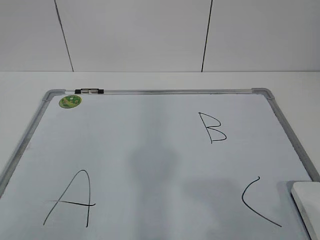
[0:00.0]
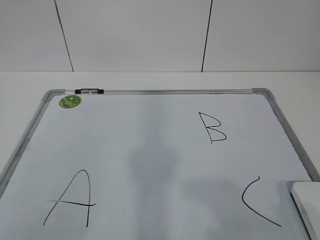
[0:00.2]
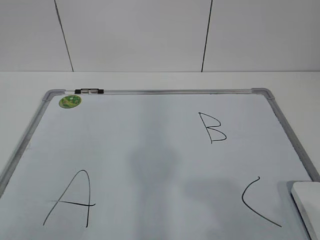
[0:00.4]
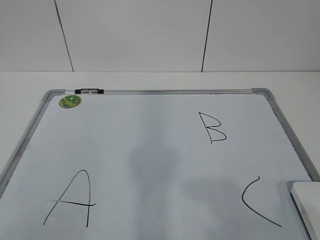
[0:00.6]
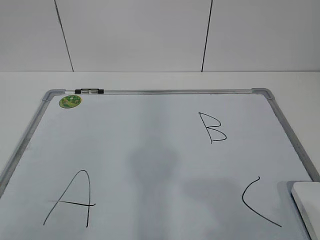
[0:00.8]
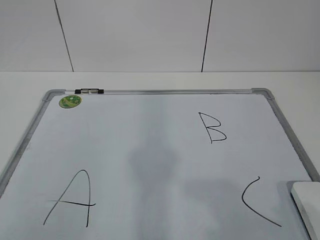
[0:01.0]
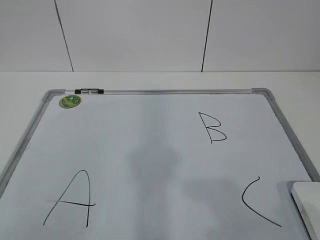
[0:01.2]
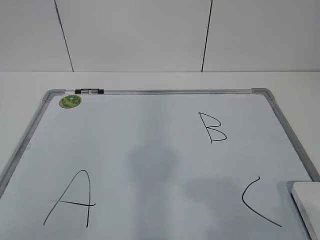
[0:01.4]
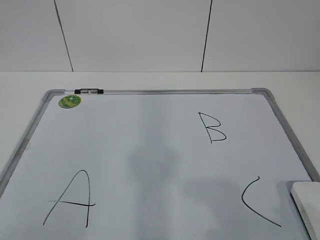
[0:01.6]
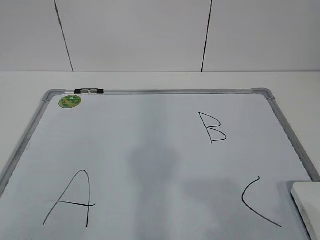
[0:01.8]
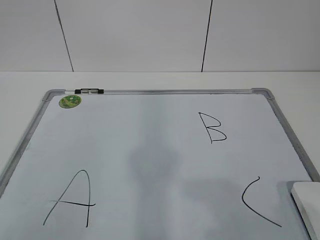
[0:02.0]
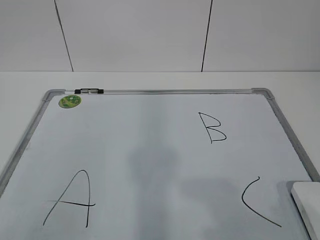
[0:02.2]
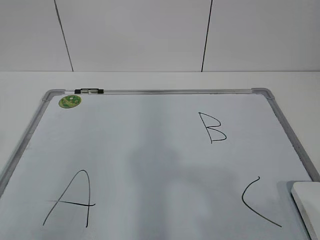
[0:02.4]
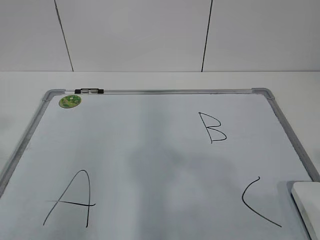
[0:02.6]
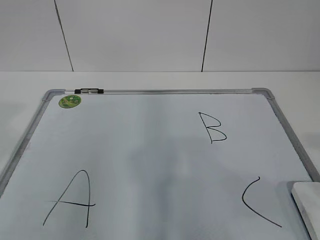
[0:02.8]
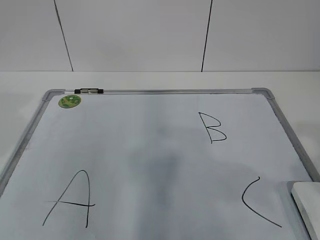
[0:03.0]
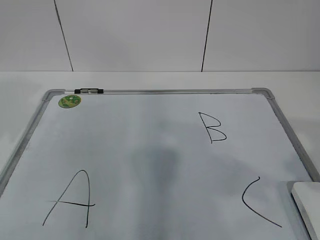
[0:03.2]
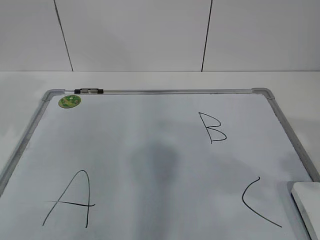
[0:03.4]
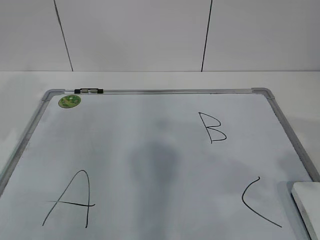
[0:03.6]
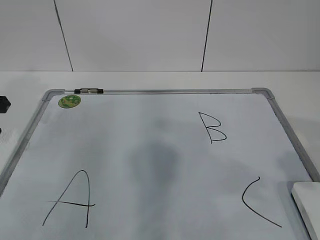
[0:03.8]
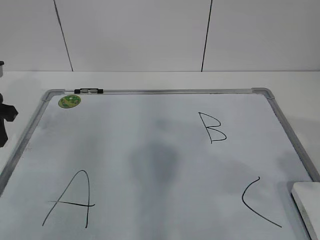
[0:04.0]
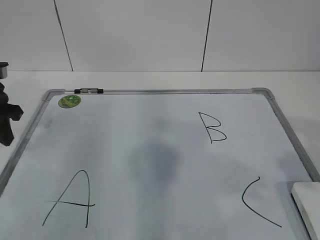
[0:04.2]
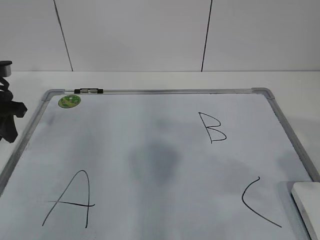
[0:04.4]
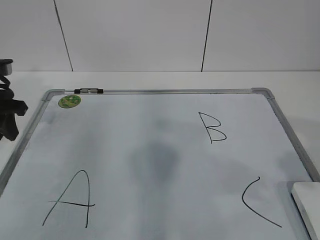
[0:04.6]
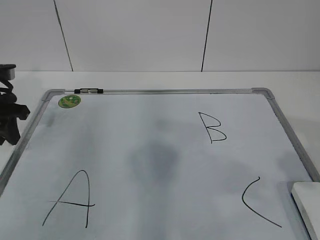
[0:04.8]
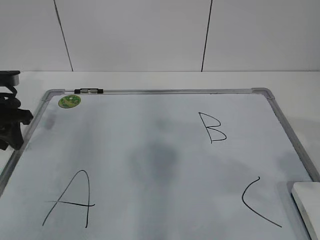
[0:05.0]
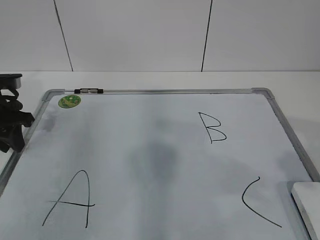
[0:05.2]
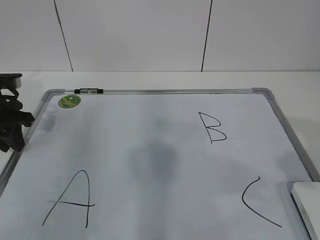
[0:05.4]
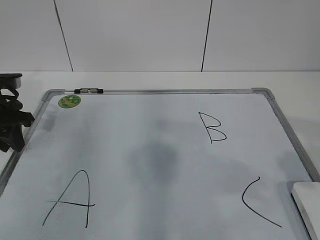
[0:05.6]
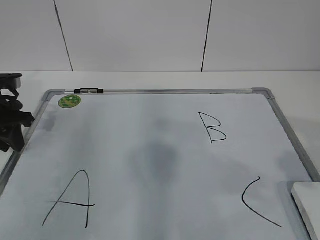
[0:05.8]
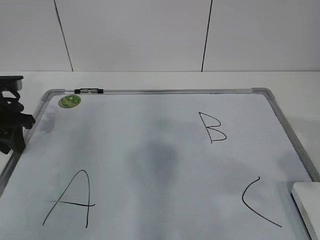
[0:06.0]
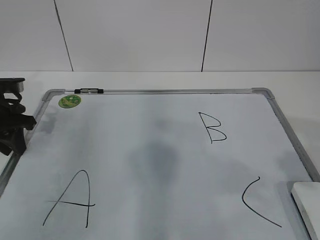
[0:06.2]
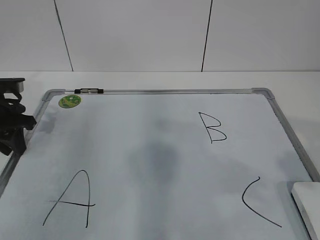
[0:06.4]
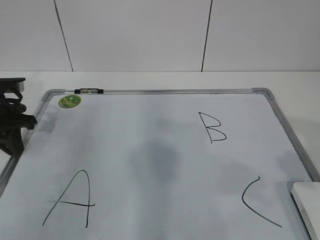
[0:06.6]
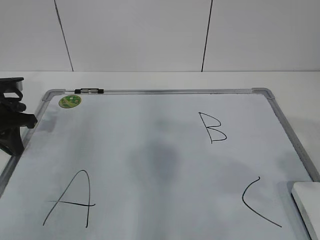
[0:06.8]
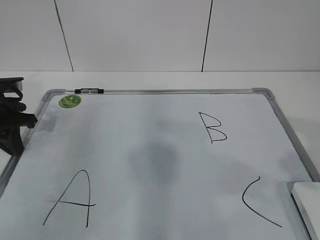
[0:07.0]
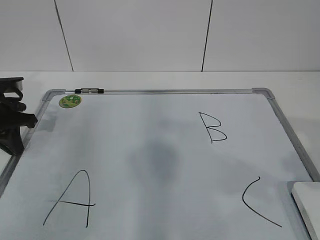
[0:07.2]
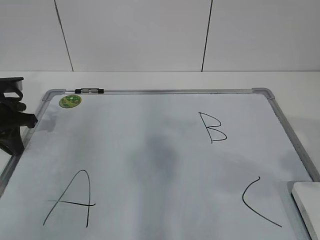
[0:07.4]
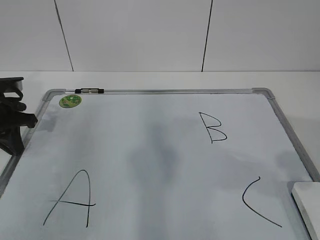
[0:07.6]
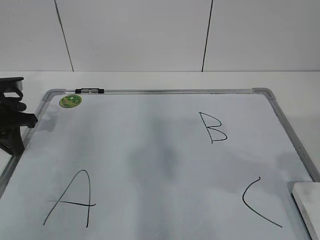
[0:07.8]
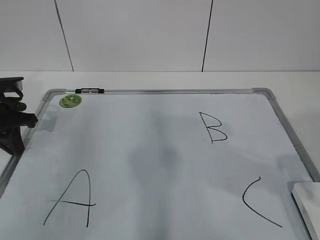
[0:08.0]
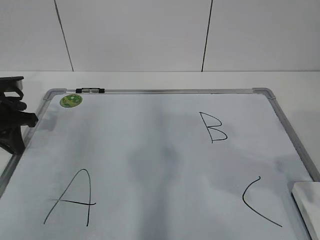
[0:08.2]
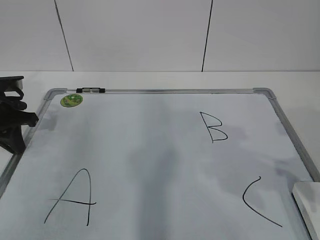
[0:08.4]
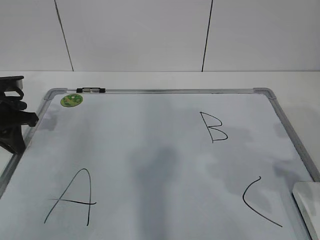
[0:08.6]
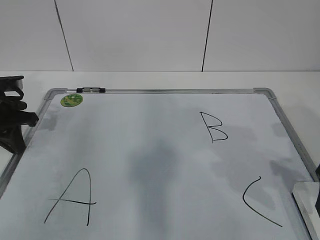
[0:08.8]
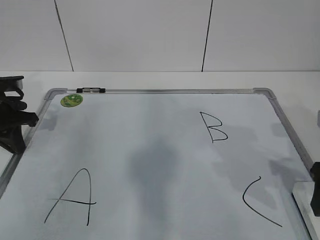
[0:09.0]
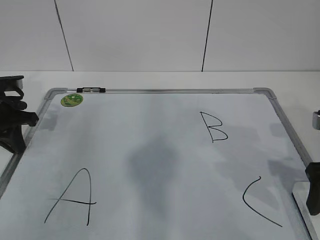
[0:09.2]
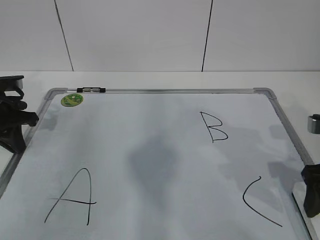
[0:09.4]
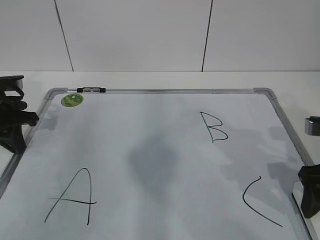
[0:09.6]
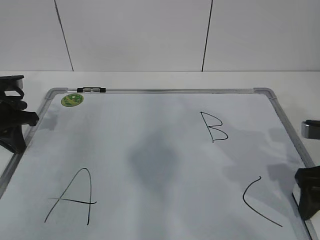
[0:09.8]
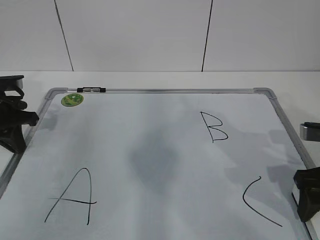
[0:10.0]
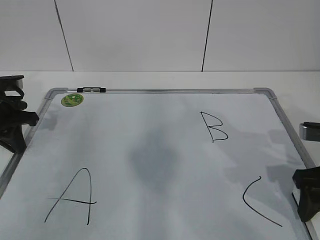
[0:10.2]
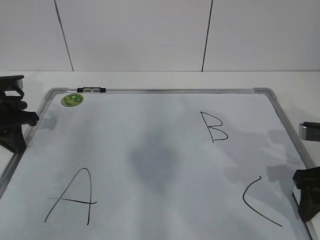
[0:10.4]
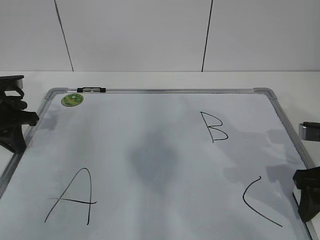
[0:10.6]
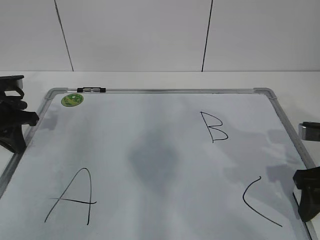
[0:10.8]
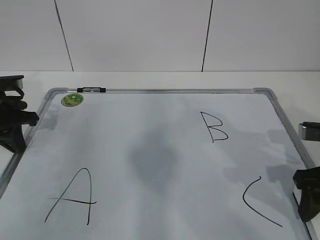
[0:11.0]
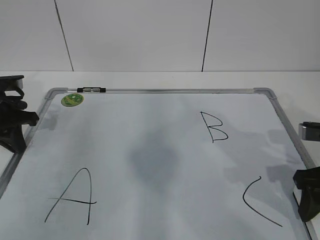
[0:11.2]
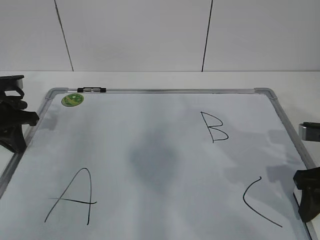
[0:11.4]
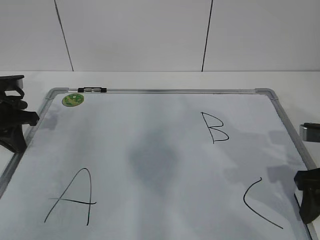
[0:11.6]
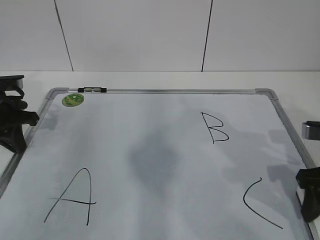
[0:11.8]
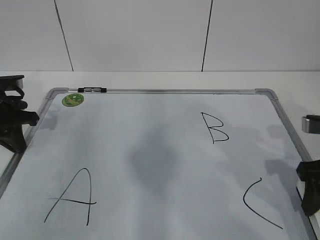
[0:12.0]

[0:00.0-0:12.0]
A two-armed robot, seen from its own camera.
Task of the whole recording: pick up the eraser on the blackboard and erase the letter "B".
Step, 0:00.0 to 0:05.4: Hold the drawing board steady with your left hand.
0:01.6 to 0:03.0: The right gripper is displaced forward and upward by some 10 cm; the left gripper shifts approximately 20 cm forward.
0:03.0 to 0:04.4: The left gripper moves forward and downward, approximately 20 cm.
0:04.4 to 0:06.0: The grippers stay close to where they were, moving slightly.
0:06.0 to 0:07.6: The left gripper closes up.
0:07.6 to 0:09.0: The right gripper is displaced forward and downward by about 15 cm.
0:09.0 to 0:10.4: The right gripper closes its fingers.
0:10.4 to 0:12.0: The grippers stay close to where they were, moving slightly.

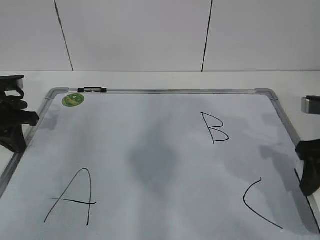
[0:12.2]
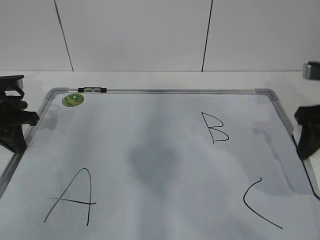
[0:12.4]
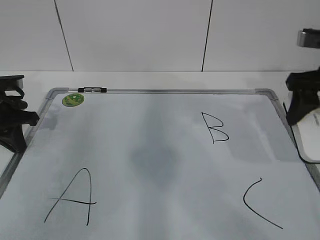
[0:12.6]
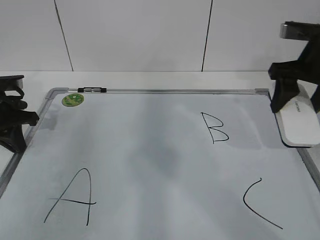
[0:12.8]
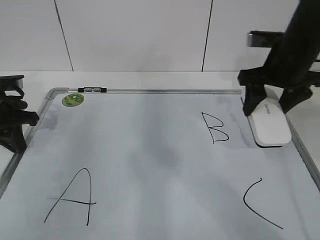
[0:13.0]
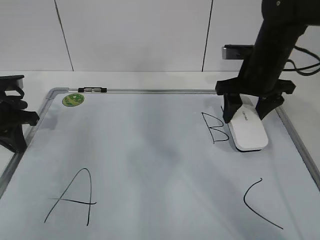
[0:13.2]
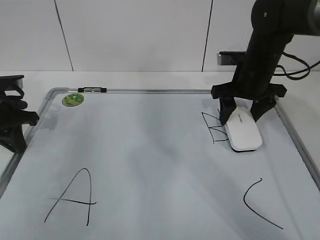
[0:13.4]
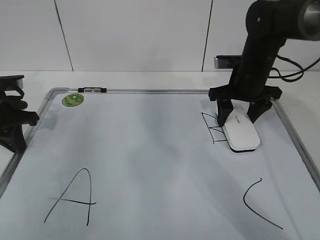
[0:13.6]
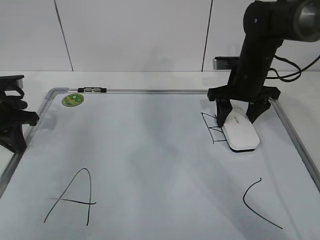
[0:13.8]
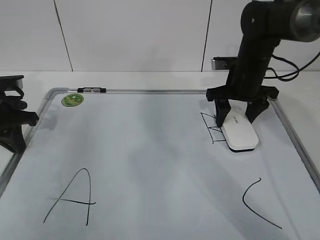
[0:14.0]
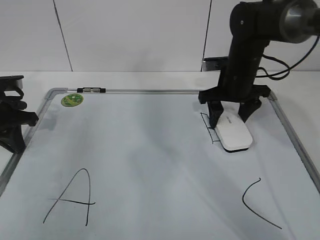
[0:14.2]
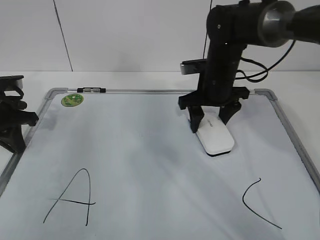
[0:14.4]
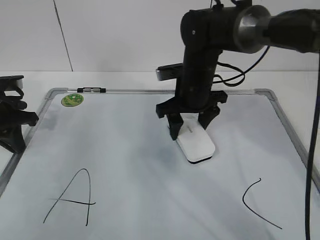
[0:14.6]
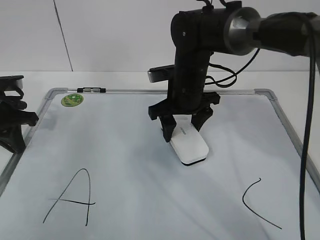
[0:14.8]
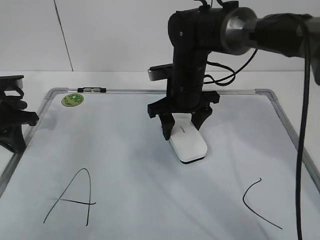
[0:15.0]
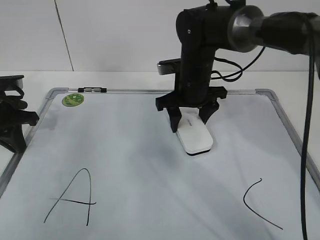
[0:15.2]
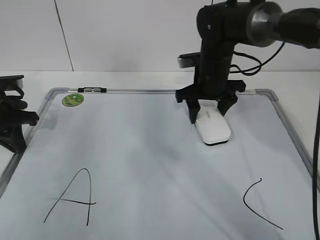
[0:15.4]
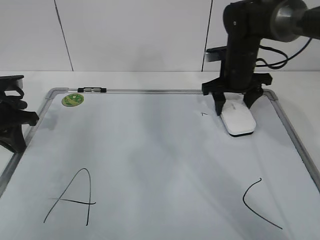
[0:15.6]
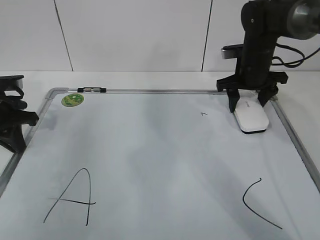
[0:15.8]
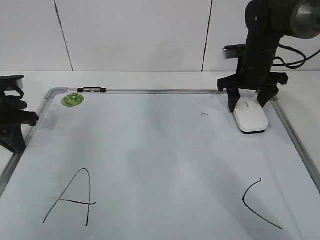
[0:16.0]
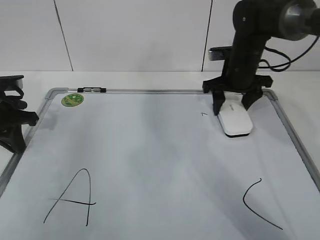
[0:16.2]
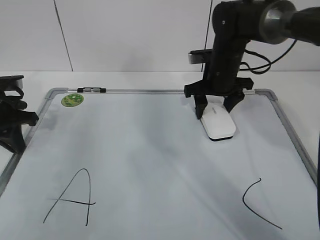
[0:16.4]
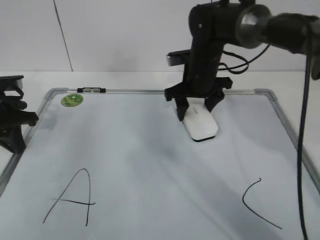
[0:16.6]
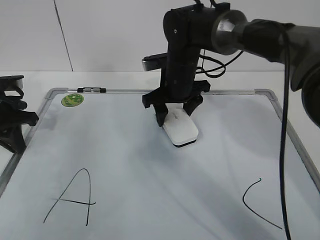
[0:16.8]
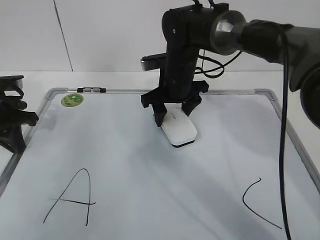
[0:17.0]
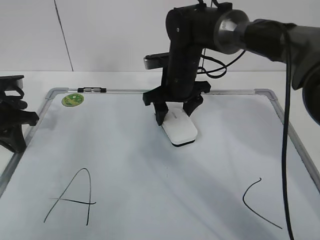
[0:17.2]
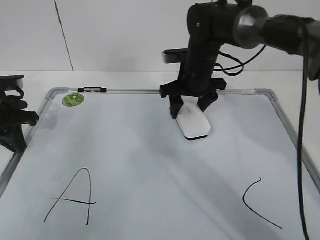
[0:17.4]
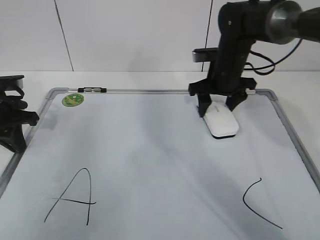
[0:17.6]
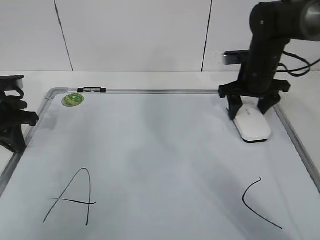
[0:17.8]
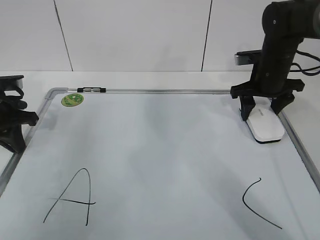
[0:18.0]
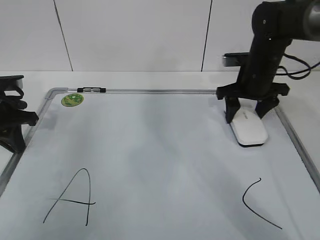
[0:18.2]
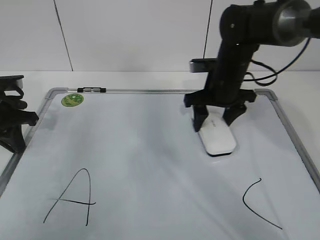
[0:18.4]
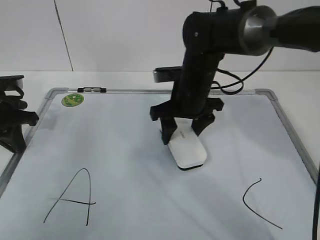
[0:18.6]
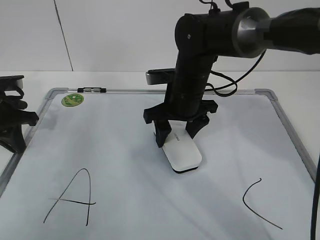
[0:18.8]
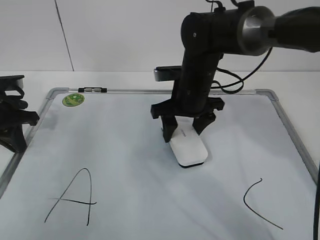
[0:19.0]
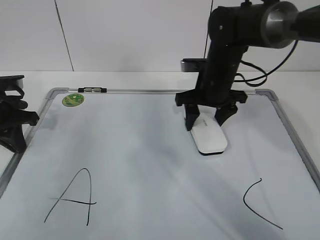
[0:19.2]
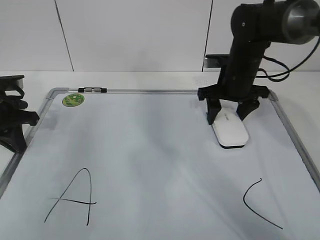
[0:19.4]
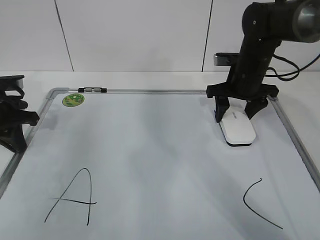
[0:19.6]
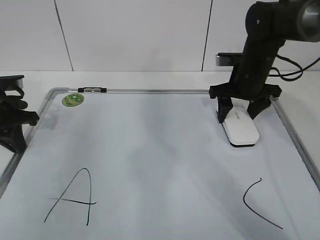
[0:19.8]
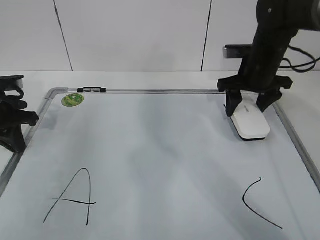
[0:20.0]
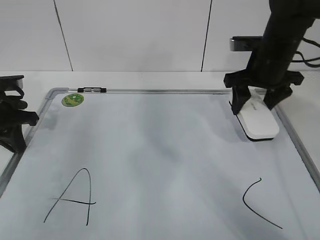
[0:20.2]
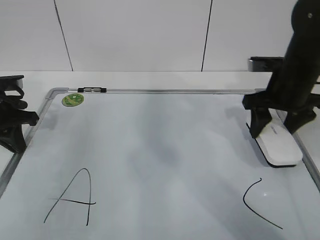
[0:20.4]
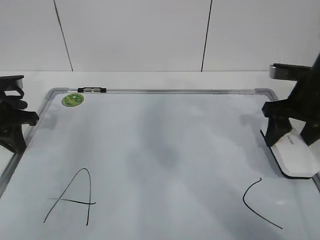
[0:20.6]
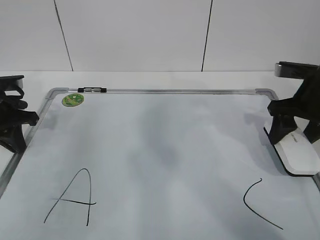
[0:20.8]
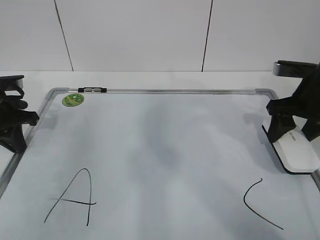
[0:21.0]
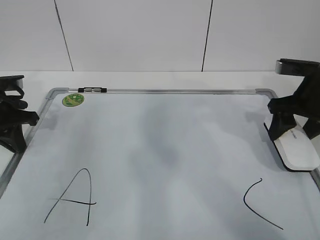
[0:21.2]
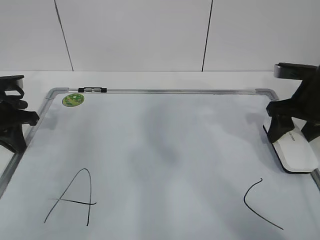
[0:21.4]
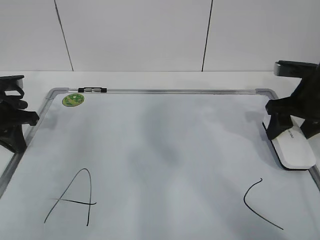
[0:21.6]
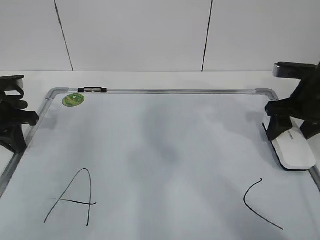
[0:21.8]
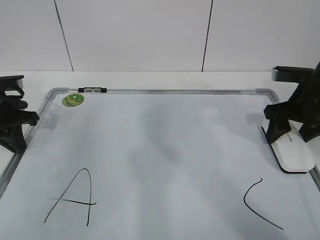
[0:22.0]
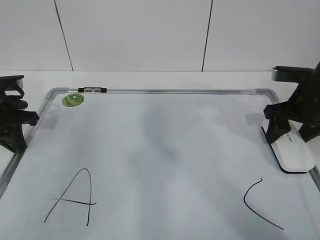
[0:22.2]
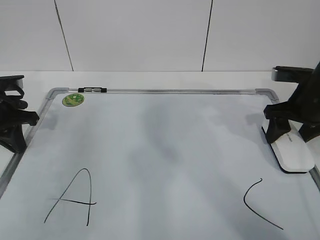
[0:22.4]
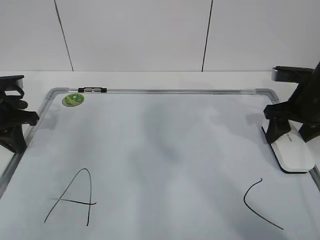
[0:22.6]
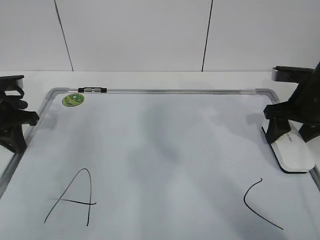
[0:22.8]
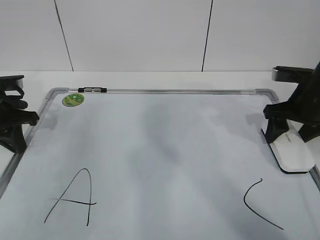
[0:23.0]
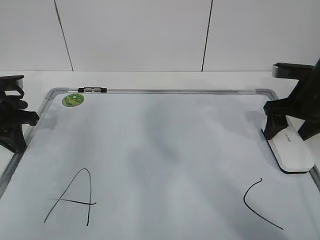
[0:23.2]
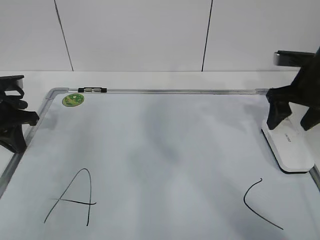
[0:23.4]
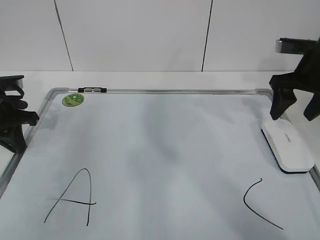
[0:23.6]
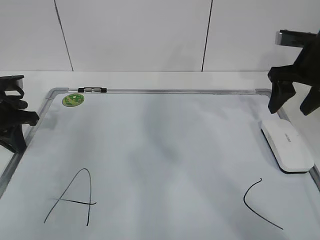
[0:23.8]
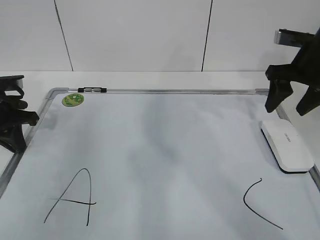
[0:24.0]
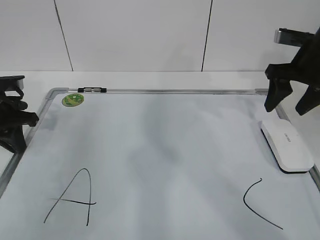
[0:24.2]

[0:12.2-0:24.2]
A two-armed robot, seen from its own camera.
Task of the whole recording: pick up the eraser on the blackboard and erase the letter "B".
Step, 0:12.2 to 0:16.4: Erase the letter B with your right hand.
Step, 0:16.6 to 0:19.0: Put down the eraser with your right hand.
0:12.2 to 0:13.8: The right gripper moves forward and to the left, roughly 20 cm.
0:13.8 to 0:15.2: The right gripper travels to the left by roughly 10 cm.
0:15.2 to 0:16.6: The right gripper travels to the right and back again, about 15 cm each way.
0:16.6 to 0:18.2: The right gripper shifts about 10 cm to the right.
0:18.2 to 0:19.8: The right gripper moves some 15 cm to the left and comes back.
0:19.8 to 0:21.2: The right gripper goes some 10 cm backward and to the right.
0:21.2 to 0:22.6: The grippers make only small movements.
0:22.6 to 0:24.2: The right gripper heads upward, covering approximately 5 cm, and opens its fingers.
